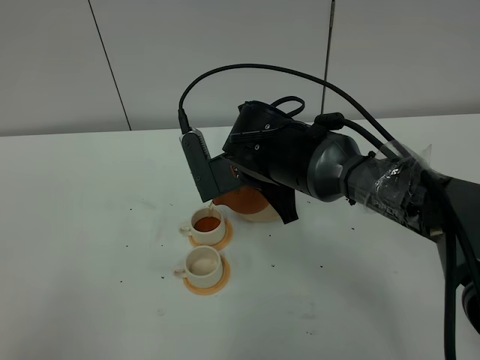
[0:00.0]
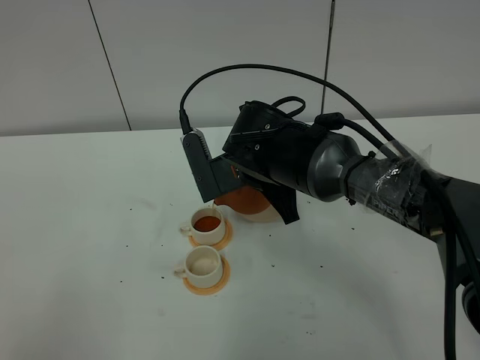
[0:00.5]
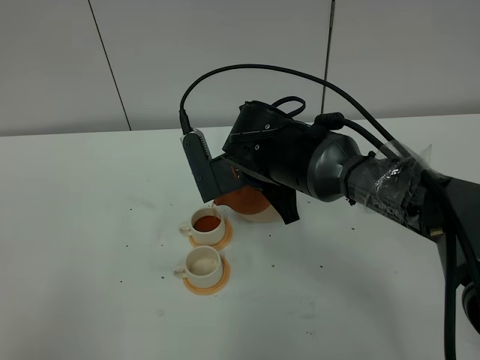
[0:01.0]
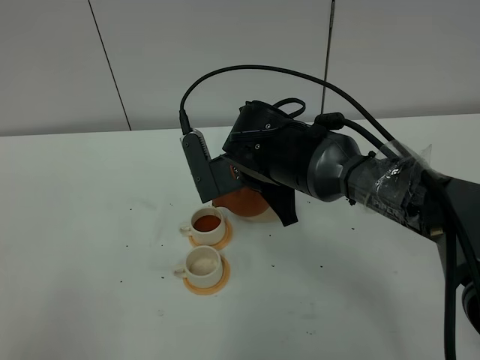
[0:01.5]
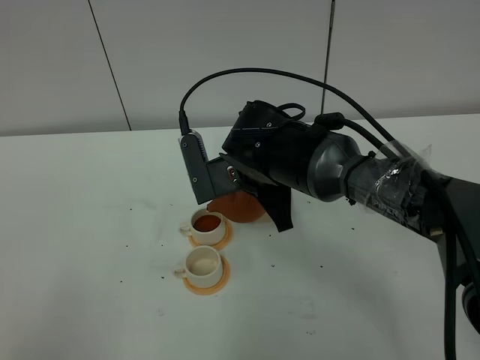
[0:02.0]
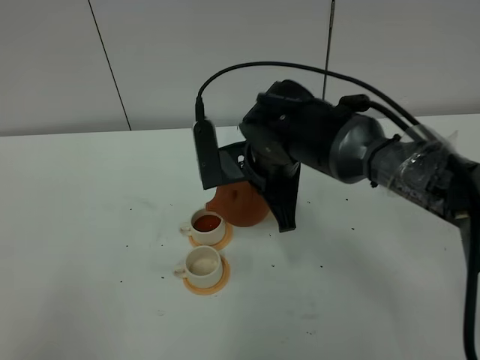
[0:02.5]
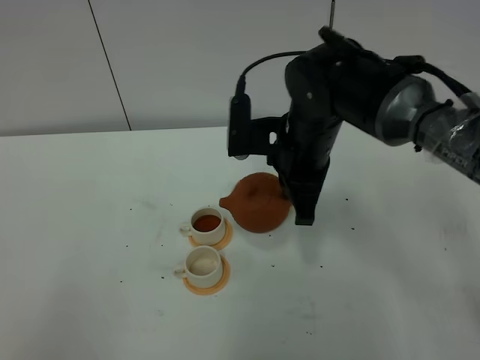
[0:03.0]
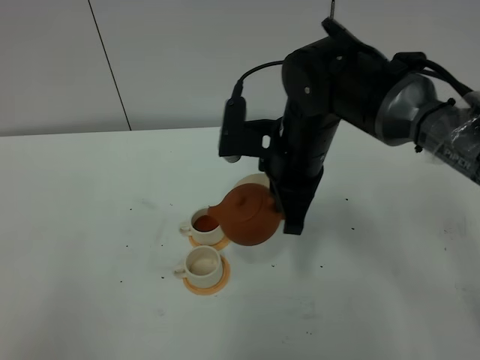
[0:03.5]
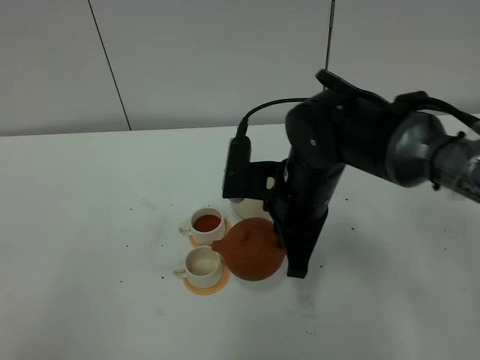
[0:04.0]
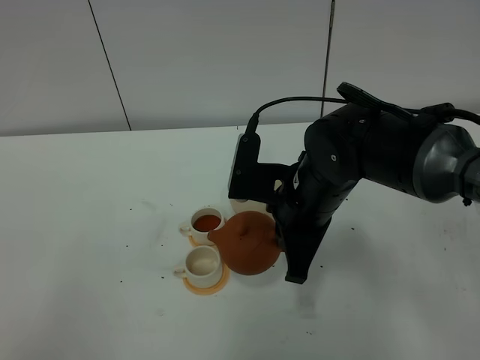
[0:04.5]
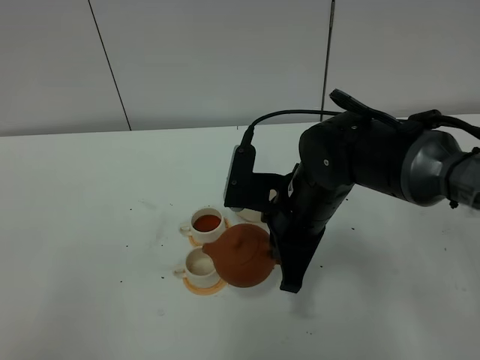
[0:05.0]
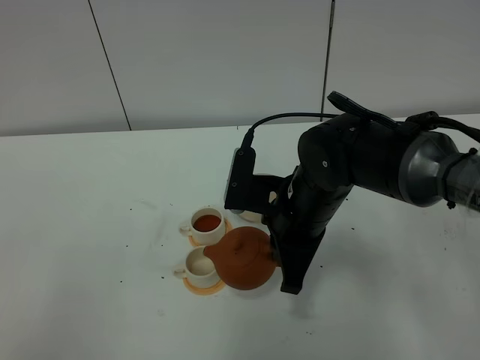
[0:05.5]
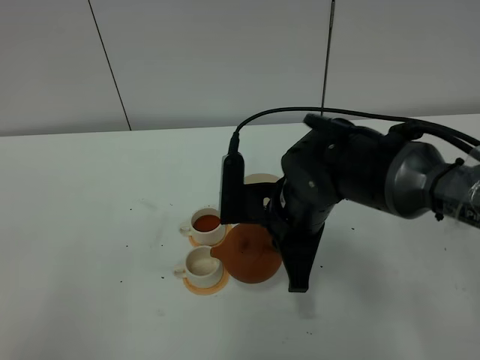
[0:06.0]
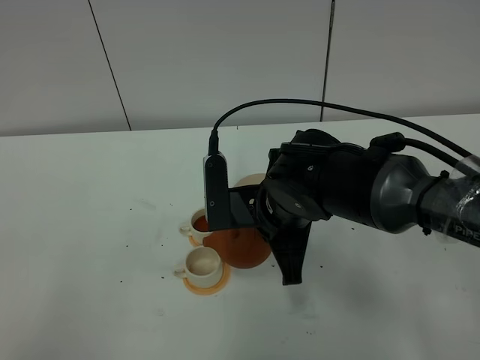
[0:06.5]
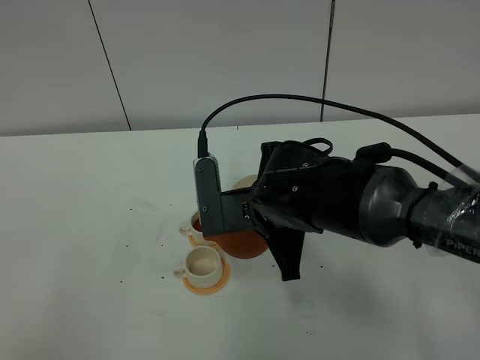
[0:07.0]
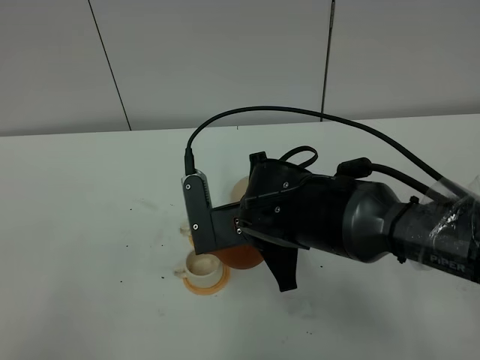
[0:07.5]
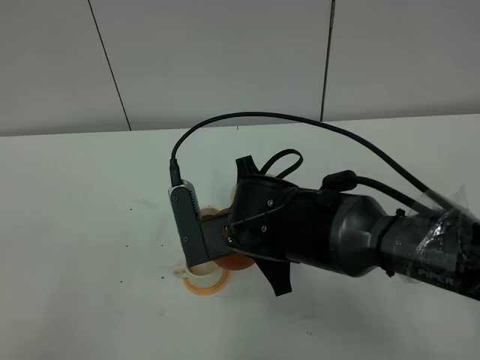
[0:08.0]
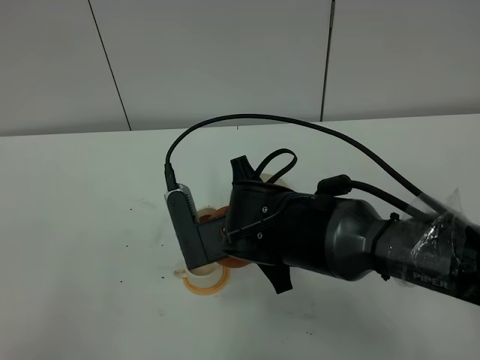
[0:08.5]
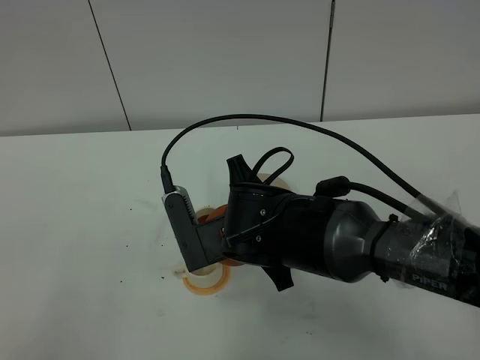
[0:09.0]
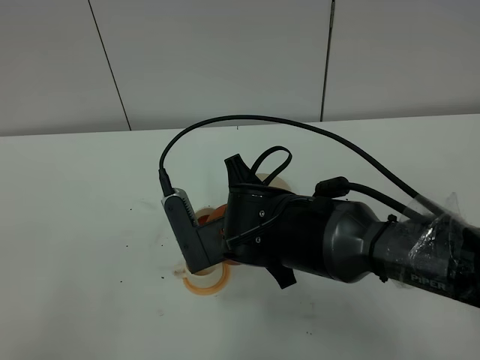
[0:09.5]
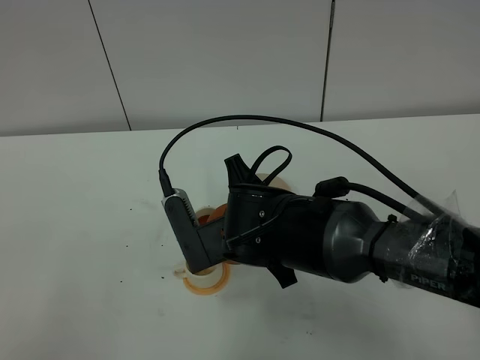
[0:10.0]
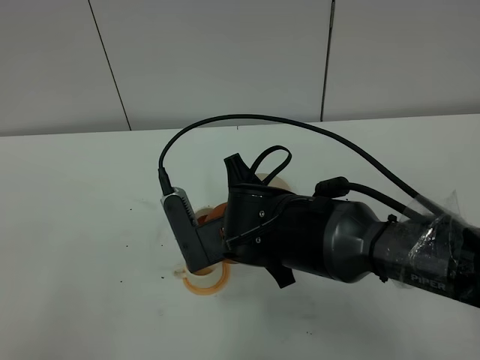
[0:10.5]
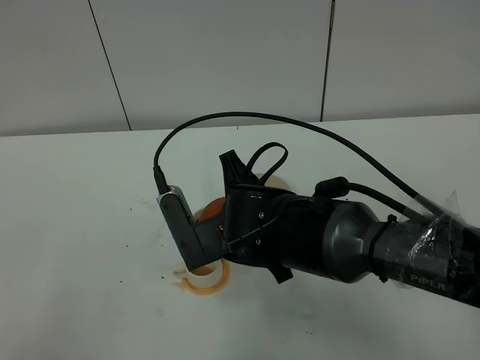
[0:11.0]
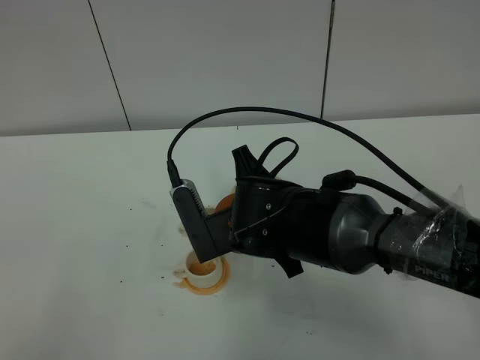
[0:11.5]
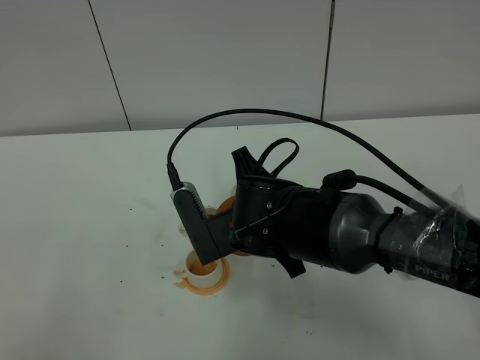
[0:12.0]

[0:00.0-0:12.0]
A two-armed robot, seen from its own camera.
Task of the whole recording: grasp the brown teapot and pour the tea into the two white teacups one by one, put the brown teapot back in its original place.
Step, 0:00.0 to 0:03.0: Pour tea into the teacup with the right gripper.
0:00.0 to 0:02.0: Both grippers stay about where they are.
0:02.0 to 0:04.0: The right gripper goes approximately 5 cm to the right.
0:04.0 to 0:06.0: The grippers make only small movements.
0:06.0 to 0:08.0: The right gripper shifts by some 5 cm.
0:08.0 to 0:10.0: There are only small adjustments of the grippers.
0:10.0 to 0:12.0: Neither gripper changes place.

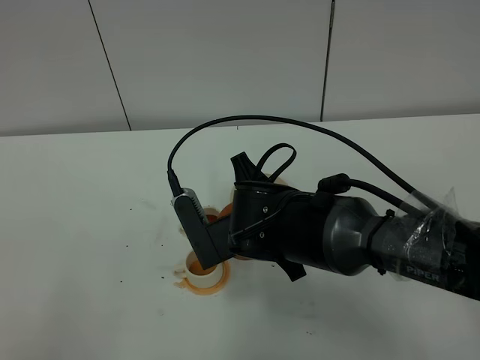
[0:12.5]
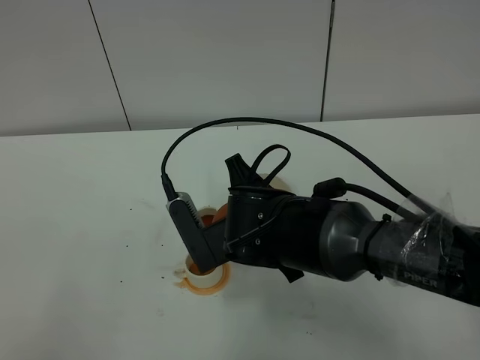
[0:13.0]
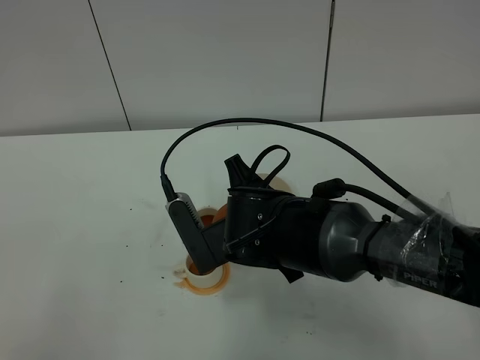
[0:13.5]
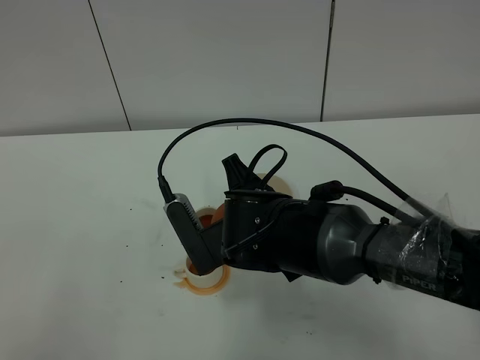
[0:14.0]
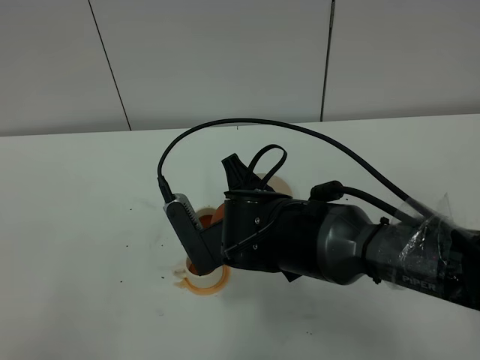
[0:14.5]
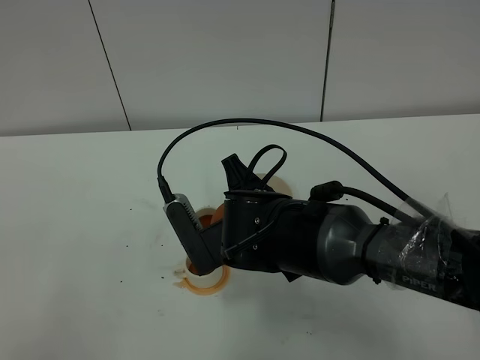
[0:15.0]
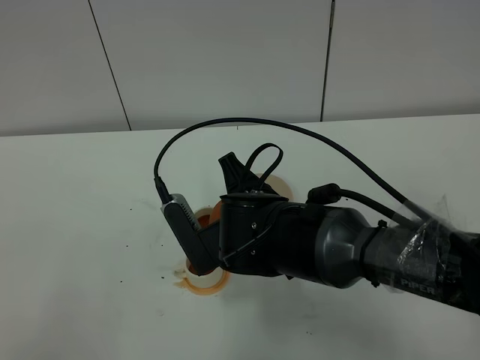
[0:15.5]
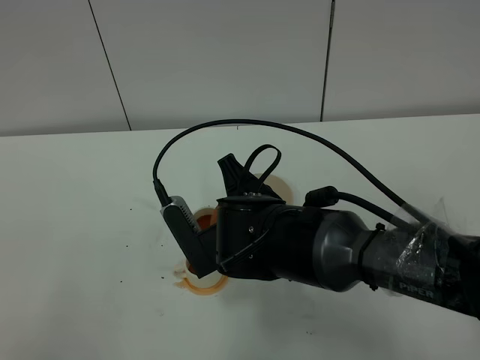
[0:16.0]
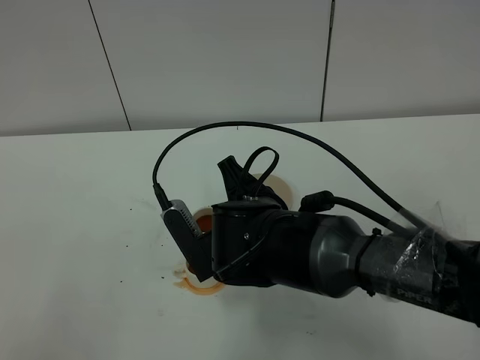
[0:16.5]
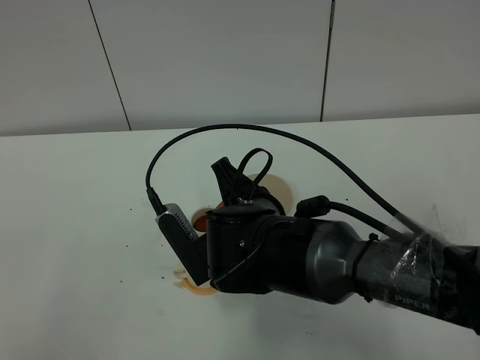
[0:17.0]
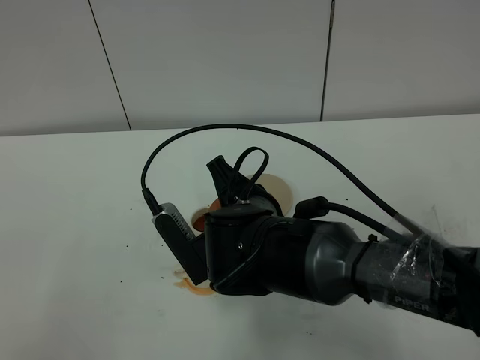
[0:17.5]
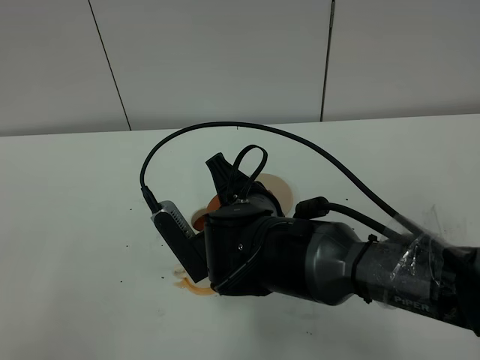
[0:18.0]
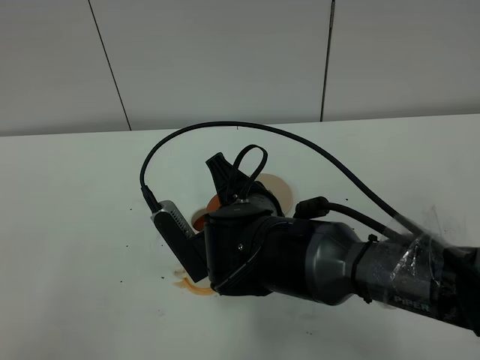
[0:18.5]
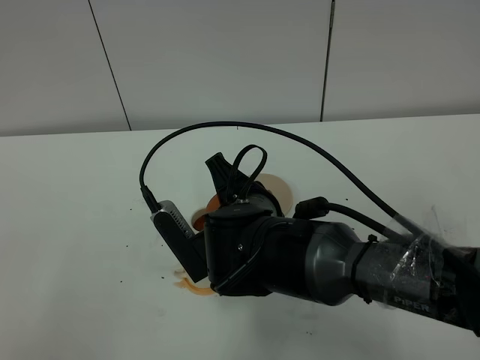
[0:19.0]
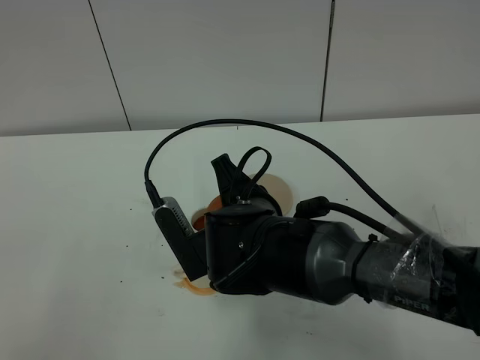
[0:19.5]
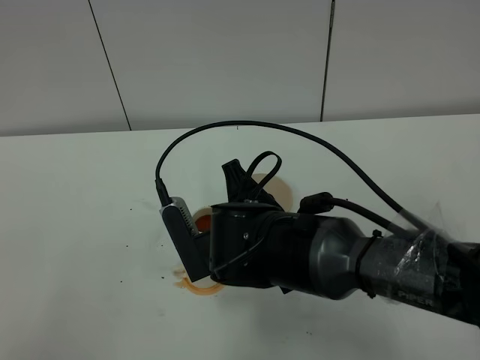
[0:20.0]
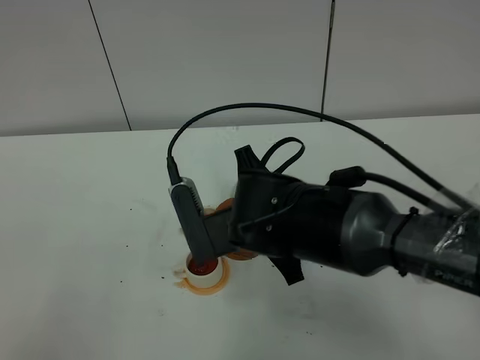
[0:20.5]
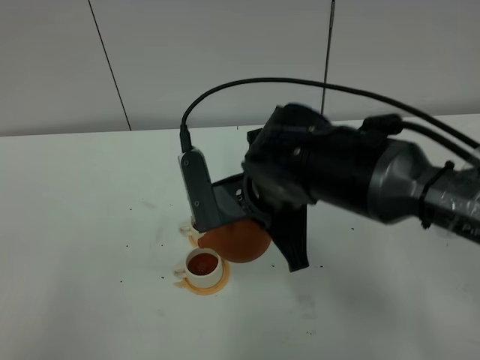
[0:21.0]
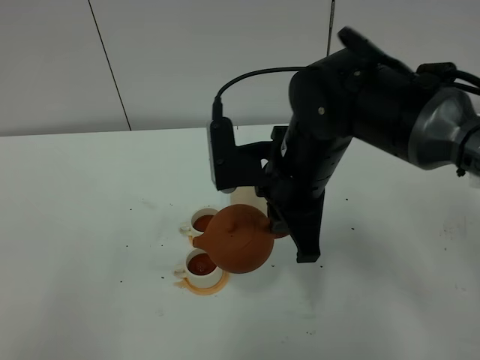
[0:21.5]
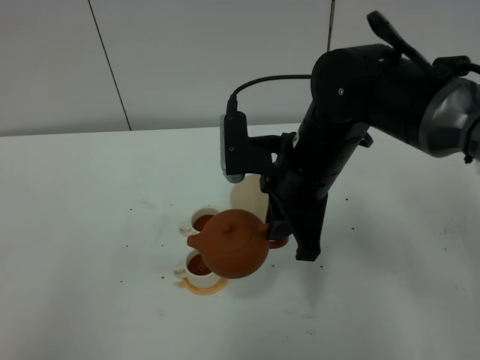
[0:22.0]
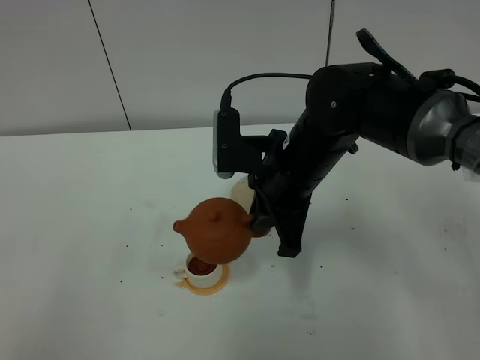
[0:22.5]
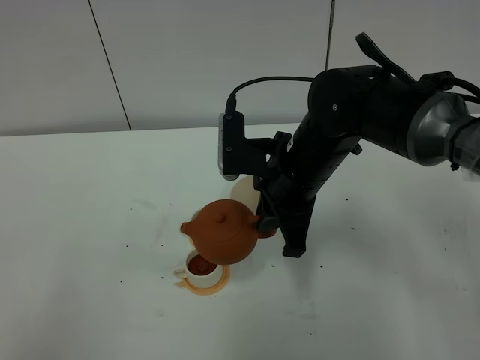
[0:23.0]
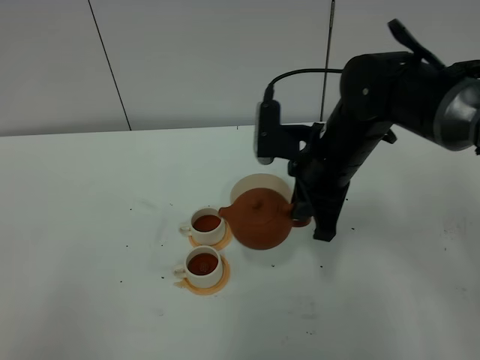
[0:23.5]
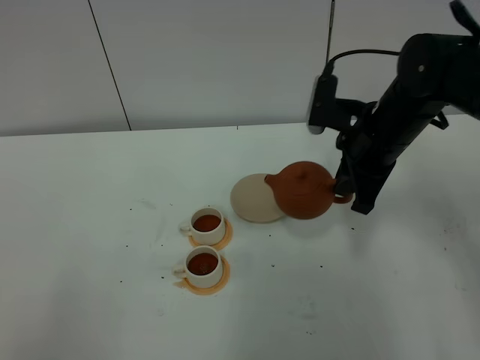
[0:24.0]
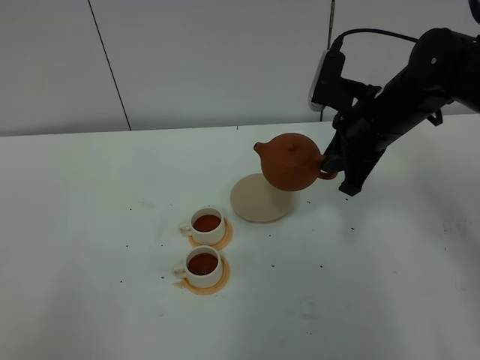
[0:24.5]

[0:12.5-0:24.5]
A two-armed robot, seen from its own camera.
Task of the whole recording: grasp the brown teapot and pour the tea into the two white teacups one by one, put the brown teapot back in its original place.
Step, 0:12.5 to 0:20.5: Pour tea into the teacup with the right gripper.
0:12.5 to 0:14.5: Neither gripper changes place.
0:14.5 to 0:16.5: The grippers make only small movements.
0:16.5 to 0:18.5: The two grippers keep their place.
0:18.5 to 0:20.5: The grippers move only a little.
0:20.5 to 0:22.5: The right gripper moves forward, some 5 cm.
0:22.5 to 0:24.5: The right gripper is displaced to the right and forward by approximately 15 cm.

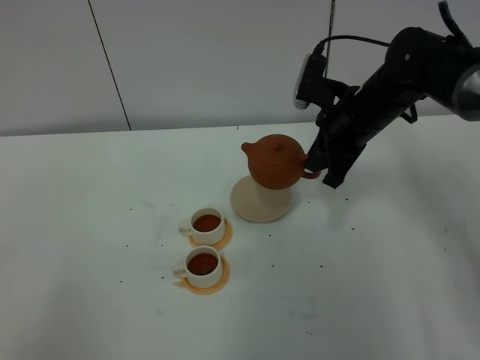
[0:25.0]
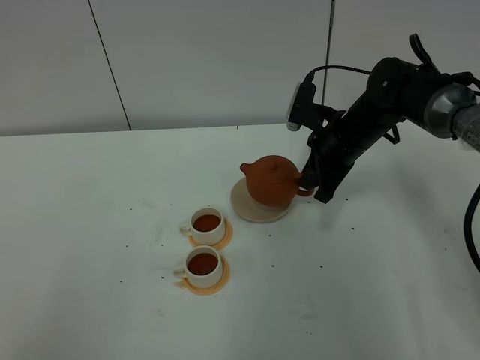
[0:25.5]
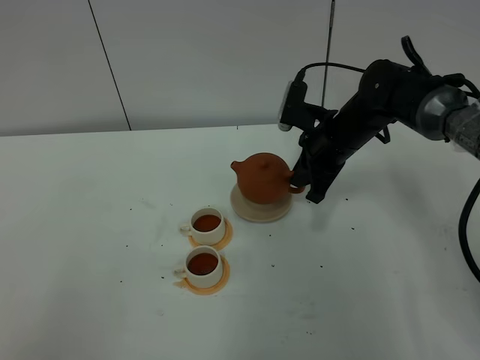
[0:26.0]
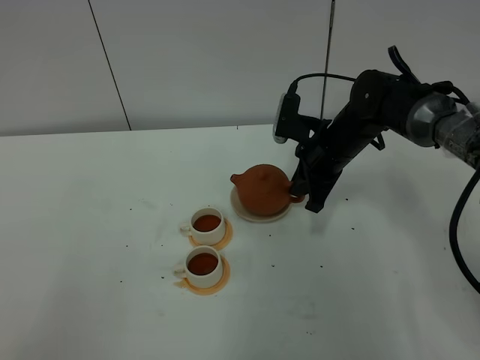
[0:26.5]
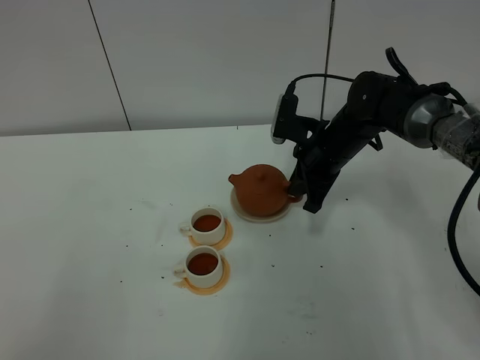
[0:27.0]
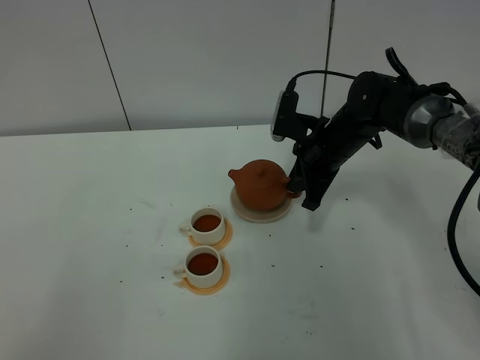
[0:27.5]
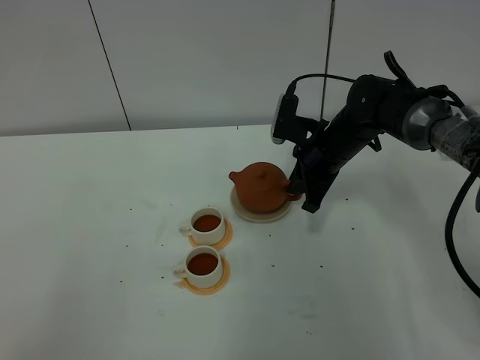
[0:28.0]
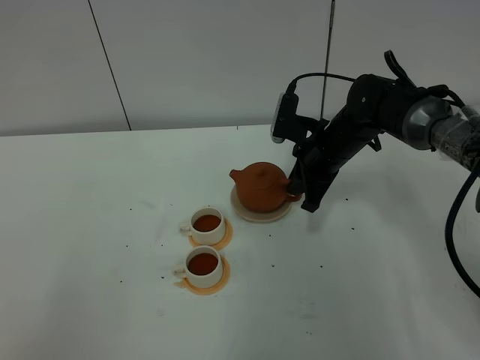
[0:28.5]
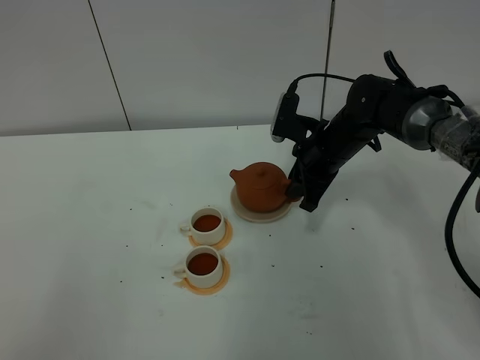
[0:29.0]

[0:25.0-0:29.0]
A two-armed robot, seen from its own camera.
Task of the whole recording: grasp the brown teapot and pour the tea into the two white teacups one by one, put the brown teapot back in its original place.
0:25.0 to 0:27.0: The right gripper goes some 5 cm downward.
0:27.0 to 0:29.0: The right gripper opens.
